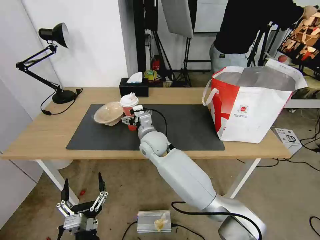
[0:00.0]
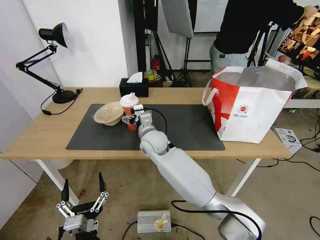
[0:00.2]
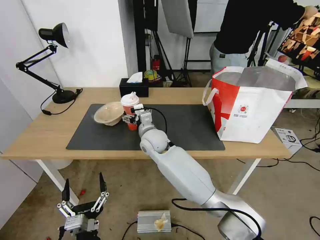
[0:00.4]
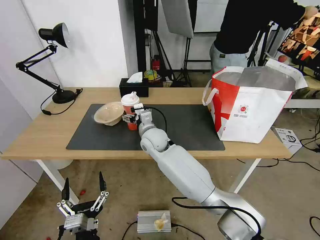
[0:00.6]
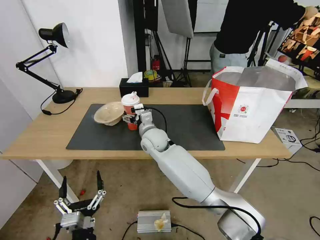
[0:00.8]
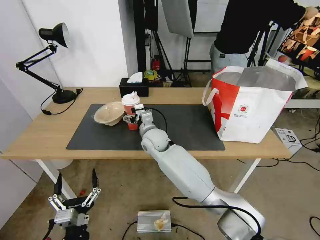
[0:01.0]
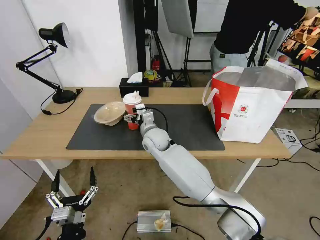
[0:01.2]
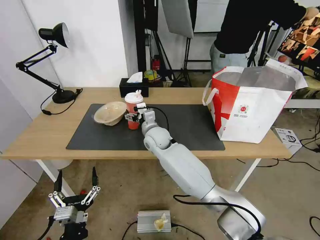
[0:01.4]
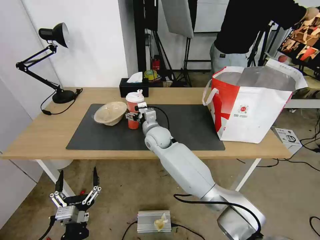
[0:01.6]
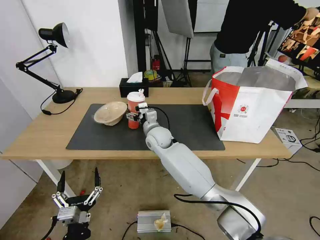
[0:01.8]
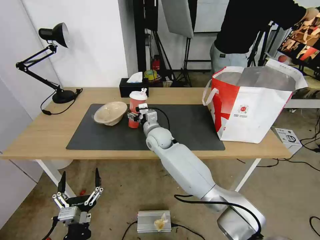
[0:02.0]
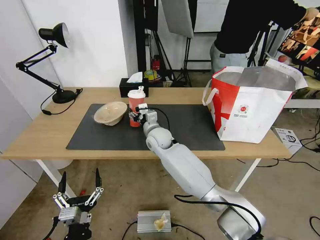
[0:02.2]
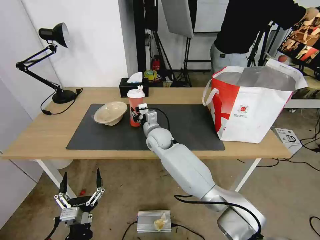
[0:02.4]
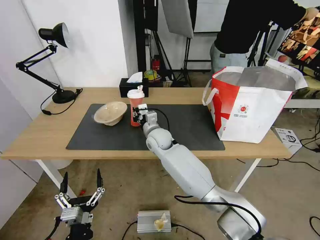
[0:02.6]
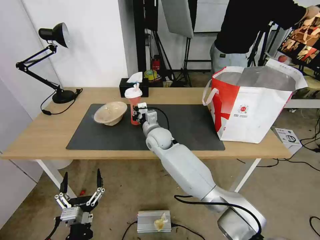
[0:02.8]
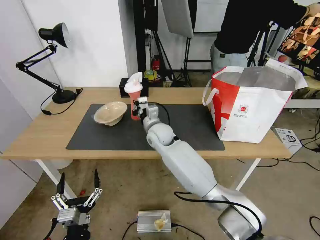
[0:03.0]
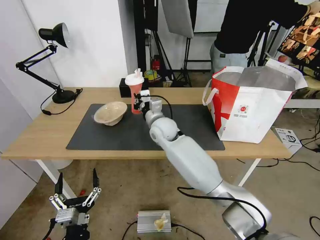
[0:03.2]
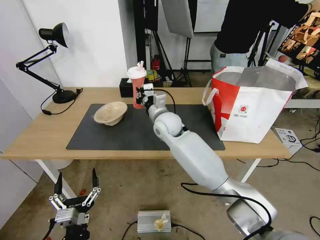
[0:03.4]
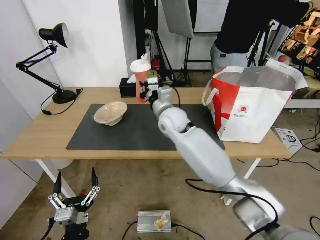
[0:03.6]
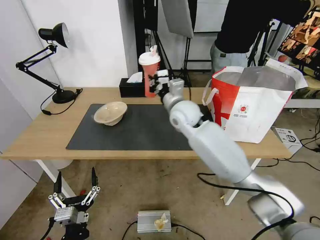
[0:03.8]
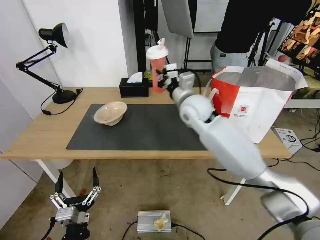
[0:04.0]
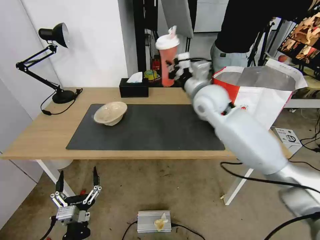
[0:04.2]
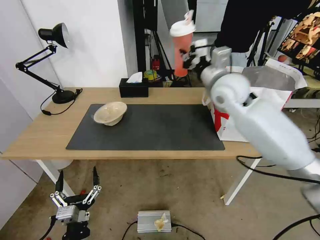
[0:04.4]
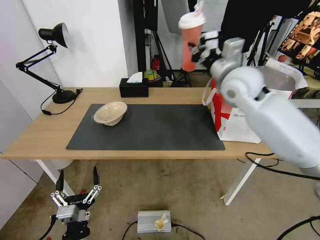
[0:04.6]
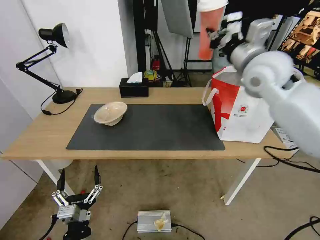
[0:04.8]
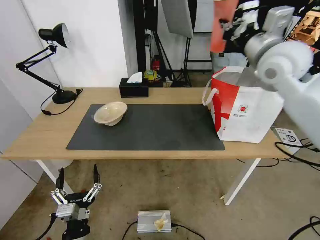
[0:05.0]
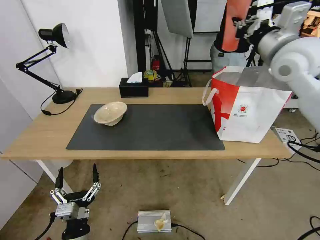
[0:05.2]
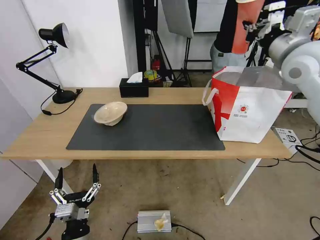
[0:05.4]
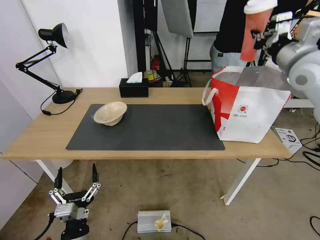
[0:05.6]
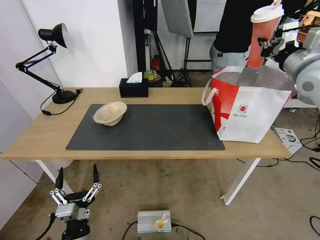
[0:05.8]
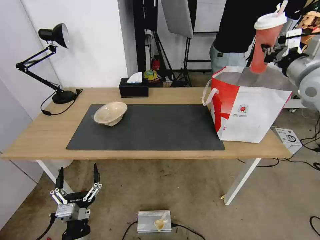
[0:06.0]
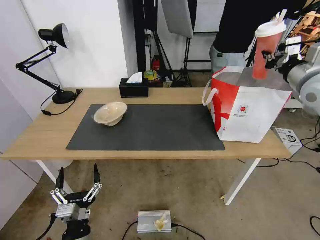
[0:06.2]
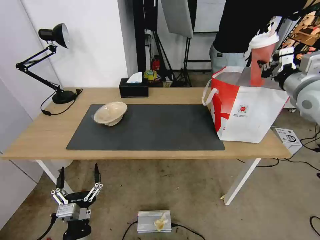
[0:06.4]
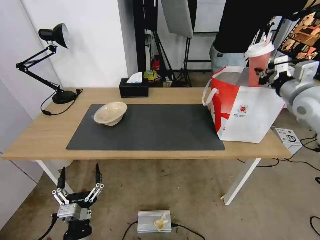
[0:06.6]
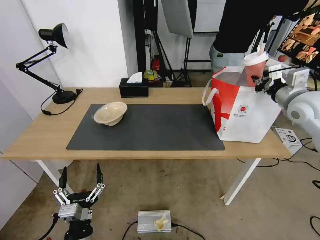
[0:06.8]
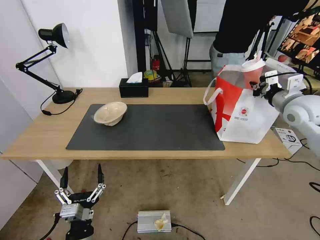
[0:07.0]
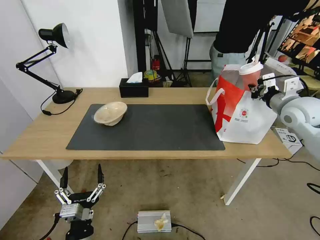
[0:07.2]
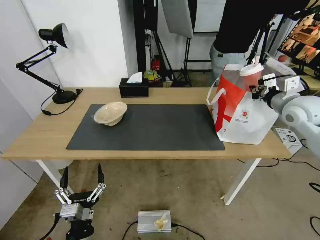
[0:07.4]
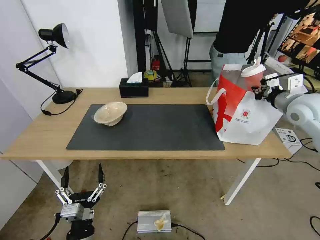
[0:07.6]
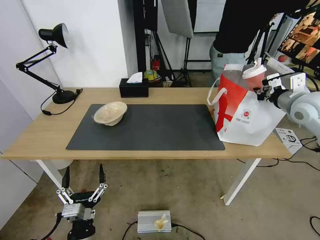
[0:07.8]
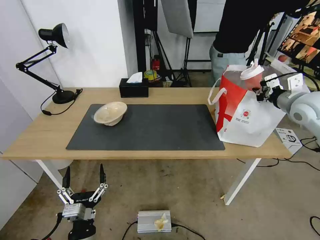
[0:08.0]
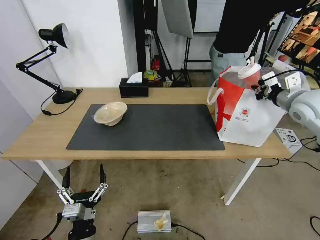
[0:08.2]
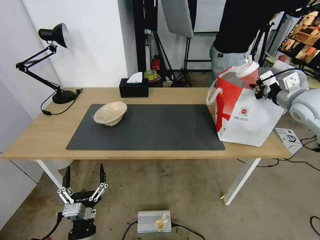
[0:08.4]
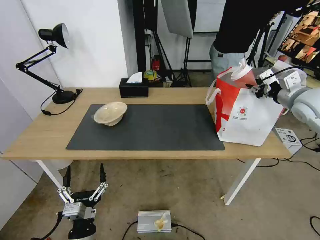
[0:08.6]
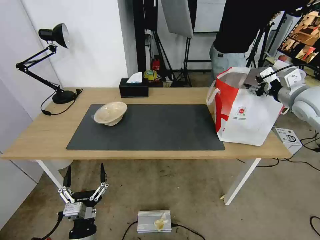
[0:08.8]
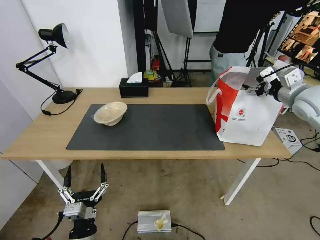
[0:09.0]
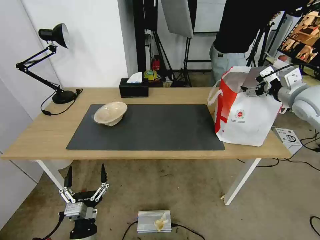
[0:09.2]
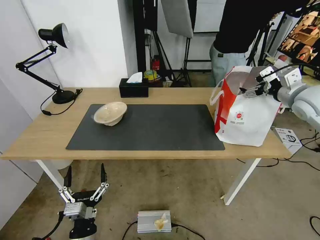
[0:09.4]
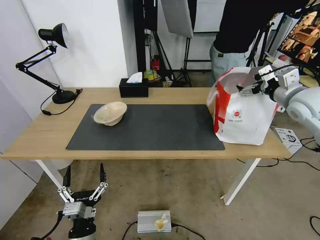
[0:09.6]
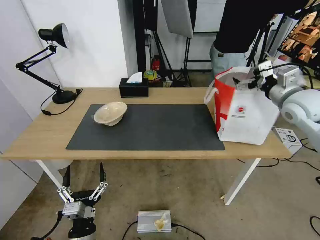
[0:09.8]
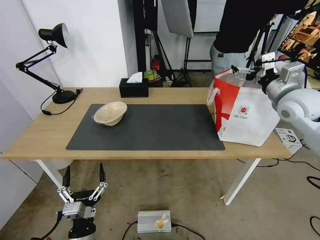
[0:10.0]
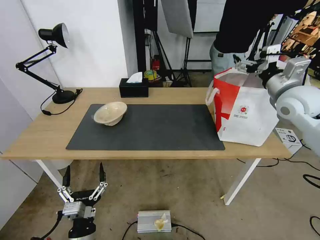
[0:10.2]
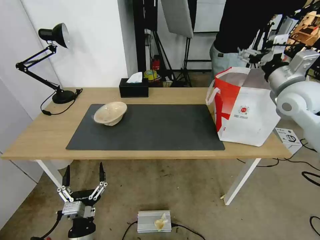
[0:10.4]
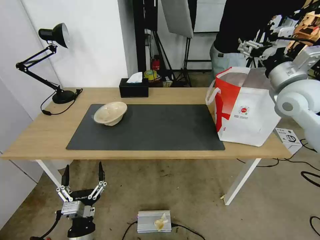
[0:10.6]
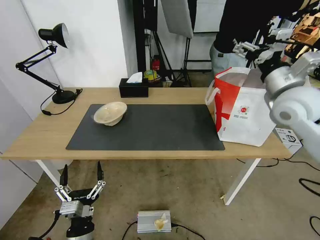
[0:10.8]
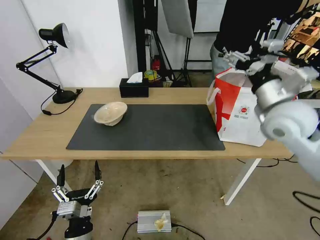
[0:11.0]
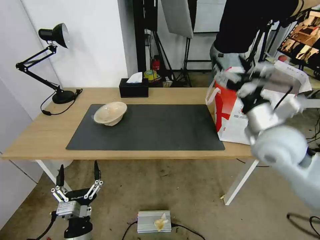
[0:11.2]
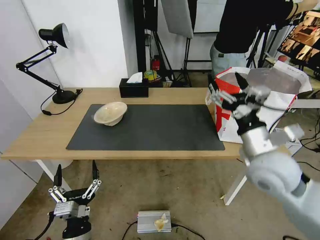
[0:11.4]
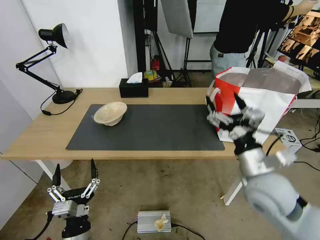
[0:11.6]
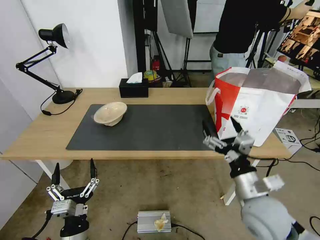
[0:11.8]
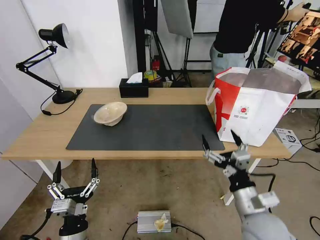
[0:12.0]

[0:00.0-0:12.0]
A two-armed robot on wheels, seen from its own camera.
Task of the whole recording: Pick up the trash from the table and place it into the takeout bag.
0:00.0 to 0:01.6: The right gripper changes place by approximately 5 cm.
0:01.6 to 0:03.0: The right gripper closes up.
0:03.0 to 0:04.4: The right gripper goes approximately 30 cm upward and to the right.
0:04.4 to 0:06.0: The right gripper shifts some 20 cm to the right.
0:06.0 to 0:07.6: The right gripper goes approximately 10 cm downward.
0:07.6 to 0:09.0: The right gripper opens its fingers.
0:09.0 to 0:10.4: The right gripper shifts about 5 cm to the left.
0:10.4 to 0:12.0: The right gripper heads backward, downward and to the left, covering some 35 cm.

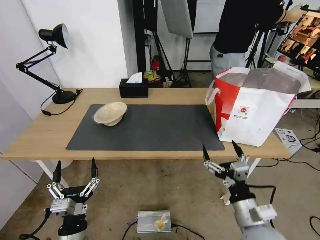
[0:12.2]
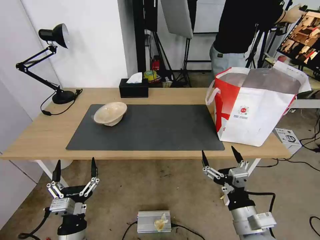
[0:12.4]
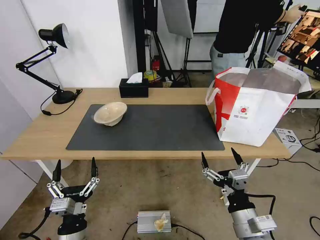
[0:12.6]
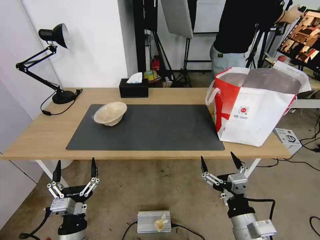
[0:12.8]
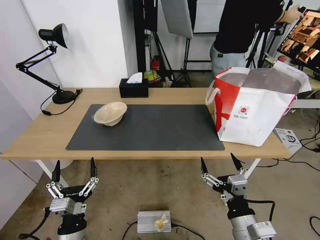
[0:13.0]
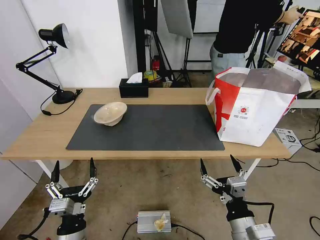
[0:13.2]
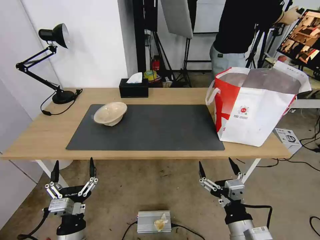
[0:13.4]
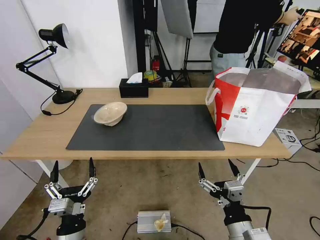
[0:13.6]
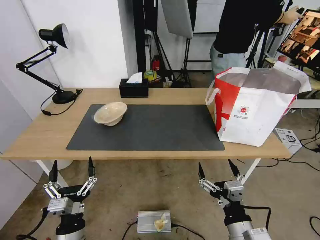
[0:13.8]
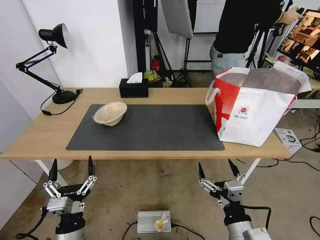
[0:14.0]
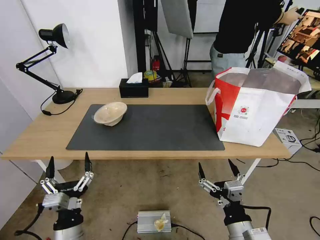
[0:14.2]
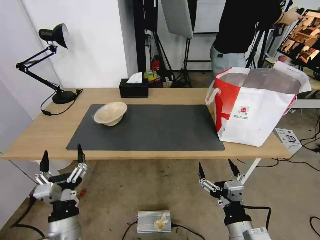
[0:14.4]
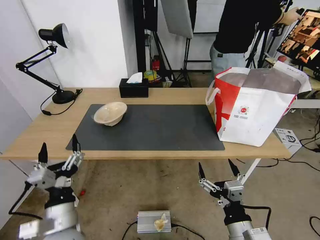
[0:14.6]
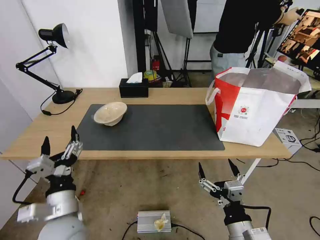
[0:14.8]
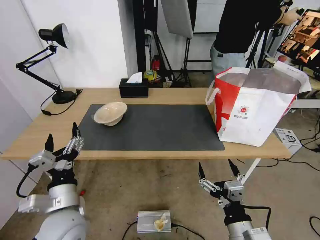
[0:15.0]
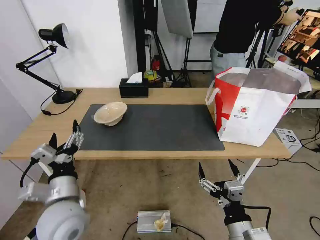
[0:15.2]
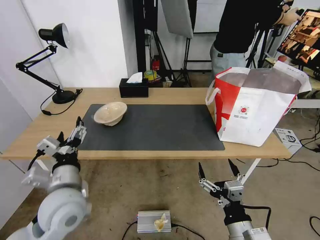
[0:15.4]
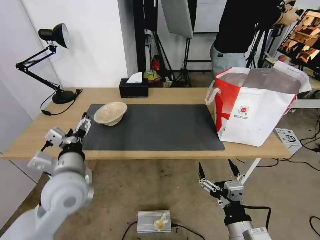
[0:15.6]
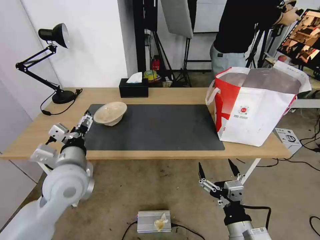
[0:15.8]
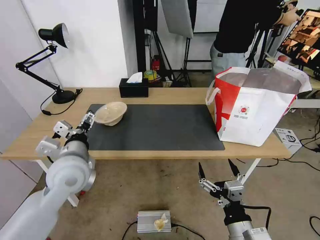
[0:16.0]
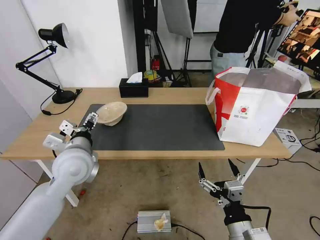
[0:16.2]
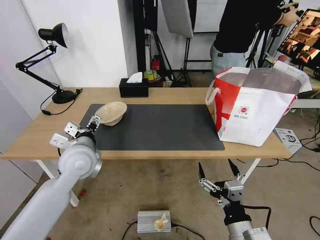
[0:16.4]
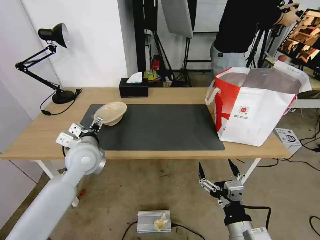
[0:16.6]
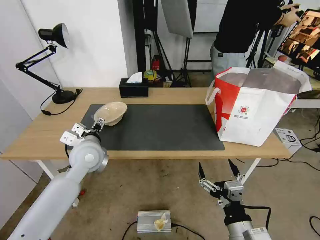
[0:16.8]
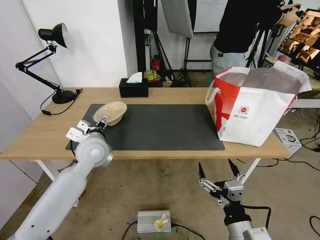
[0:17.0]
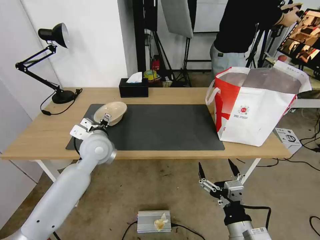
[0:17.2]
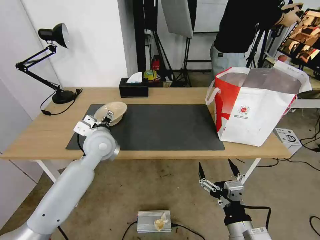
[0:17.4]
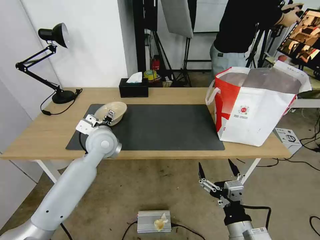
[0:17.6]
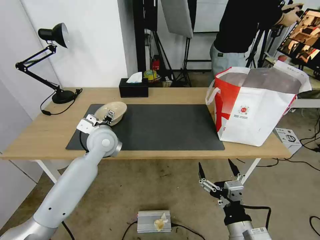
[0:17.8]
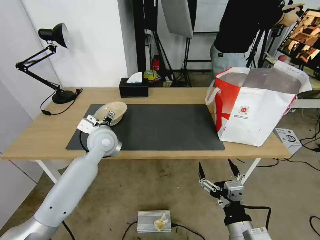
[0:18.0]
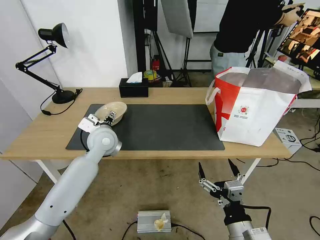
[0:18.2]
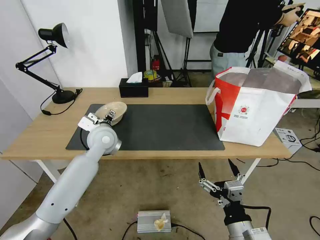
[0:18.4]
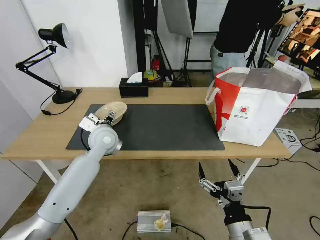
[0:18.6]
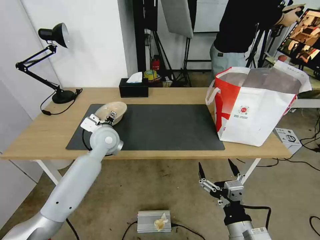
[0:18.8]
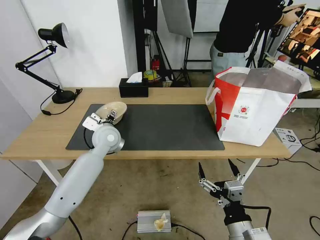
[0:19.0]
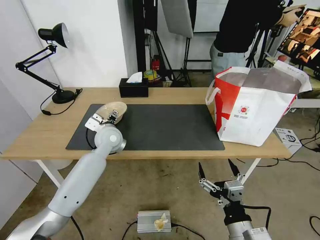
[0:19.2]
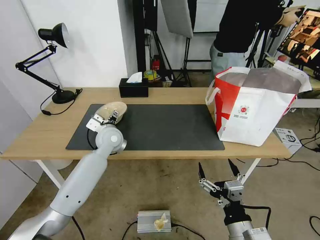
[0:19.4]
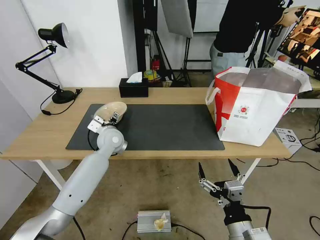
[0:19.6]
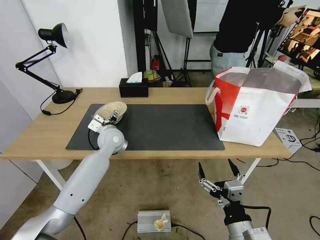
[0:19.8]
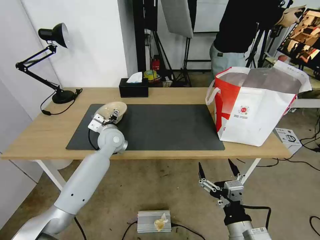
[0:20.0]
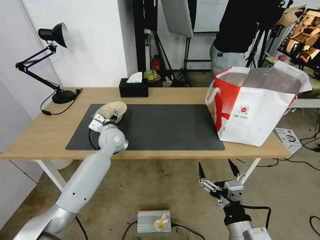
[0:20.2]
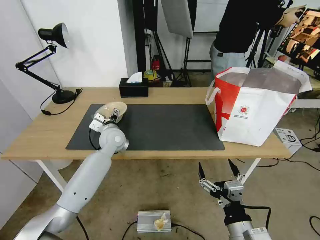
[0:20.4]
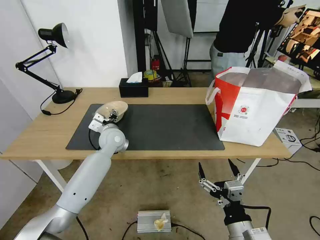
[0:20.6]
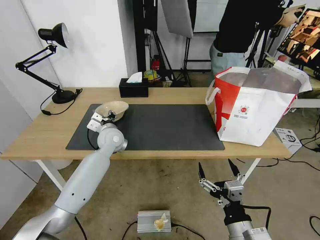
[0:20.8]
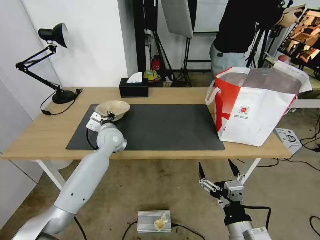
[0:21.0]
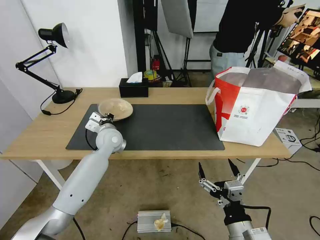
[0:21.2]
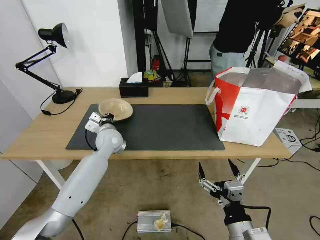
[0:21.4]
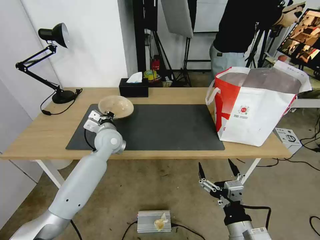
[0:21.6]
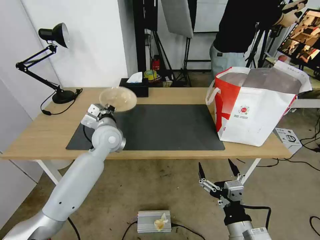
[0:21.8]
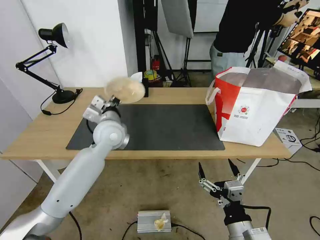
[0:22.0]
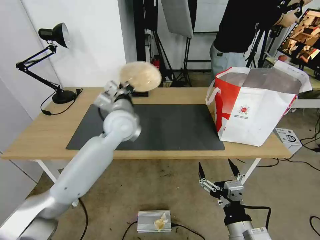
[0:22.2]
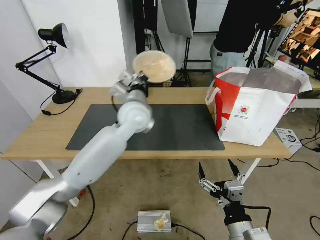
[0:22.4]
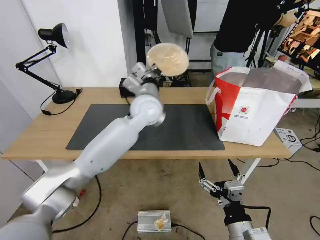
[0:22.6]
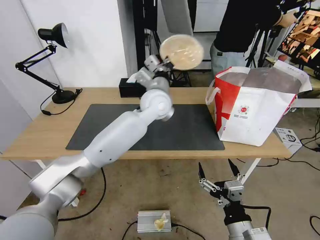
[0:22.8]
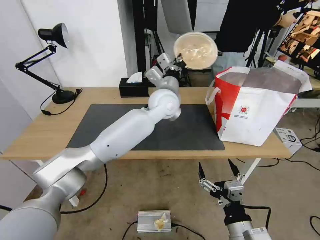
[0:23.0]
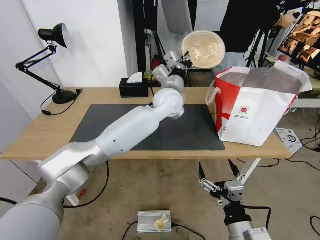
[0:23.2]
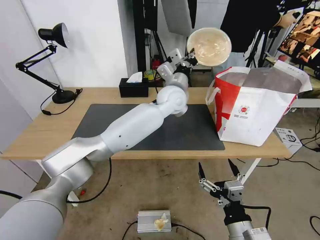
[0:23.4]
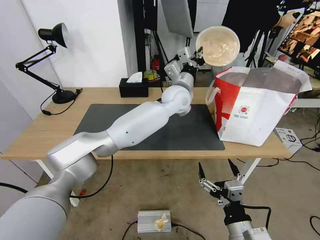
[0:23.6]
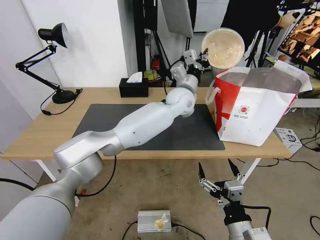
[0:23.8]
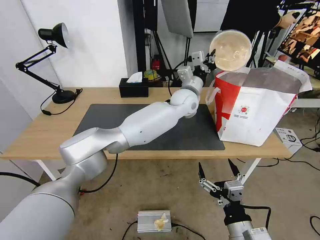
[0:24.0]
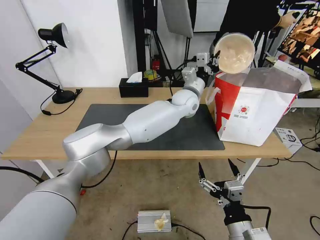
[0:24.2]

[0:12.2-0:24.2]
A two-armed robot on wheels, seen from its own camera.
Task of the whole recording: Pick up the trash from the table and place it into the takeout bag.
0:12.2 to 0:13.8: The right gripper shifts about 5 cm backward.
0:13.8 to 0:15.2: The left gripper shifts about 15 cm upward and forward.
0:15.2 to 0:16.6: The left gripper is displaced forward by roughly 15 cm.
0:16.6 to 0:18.2: The left gripper goes about 5 cm forward.
0:18.2 to 0:19.8: The left gripper heads downward, covering roughly 5 cm.
0:19.8 to 0:21.2: The left gripper closes.
0:21.2 to 0:22.6: The left gripper goes roughly 20 cm upward and to the right.
0:22.6 to 0:24.2: The left gripper moves to the right and forward, some 15 cm.
